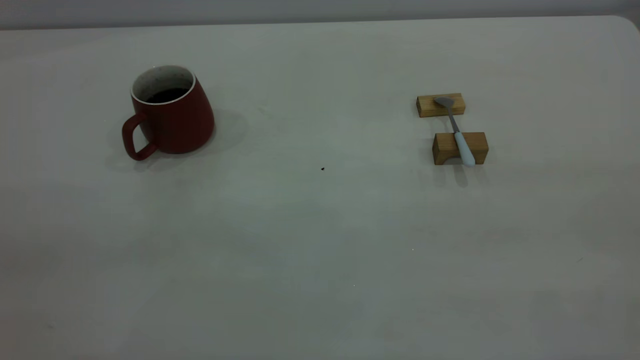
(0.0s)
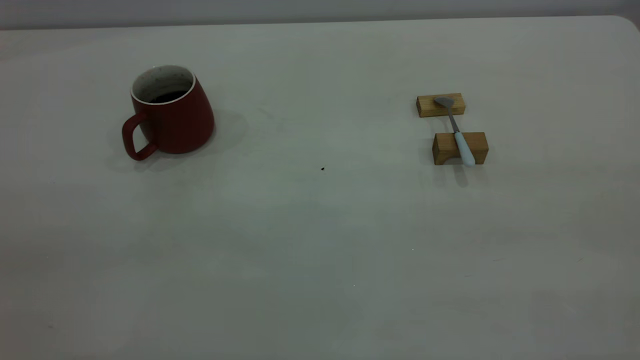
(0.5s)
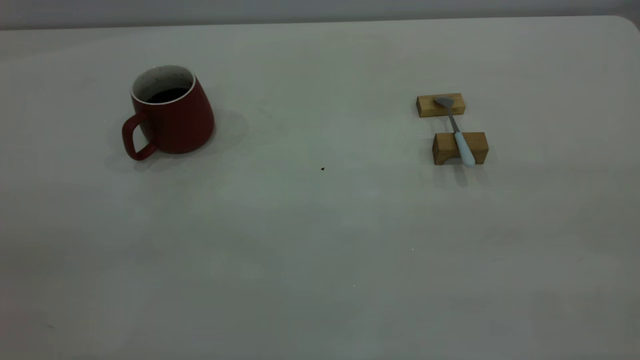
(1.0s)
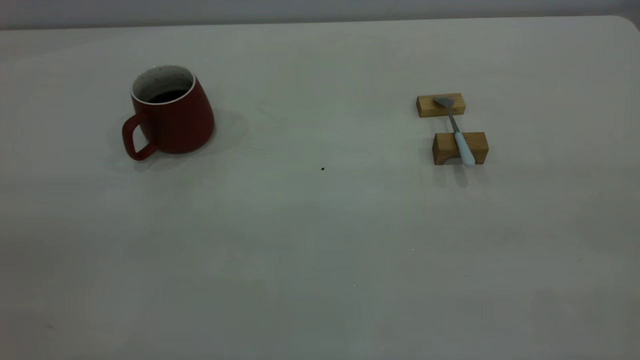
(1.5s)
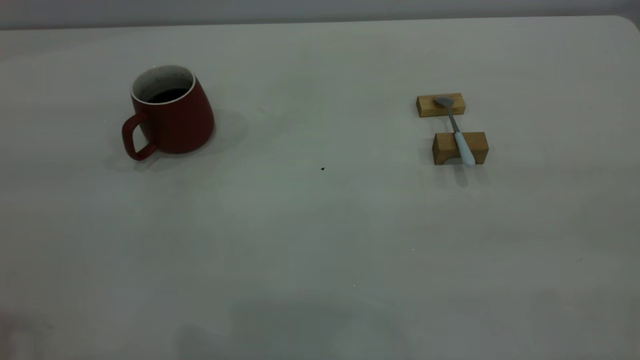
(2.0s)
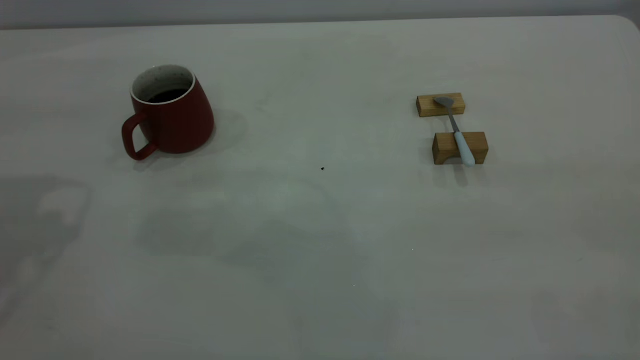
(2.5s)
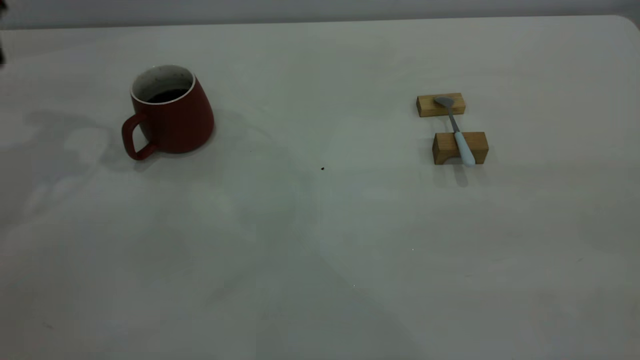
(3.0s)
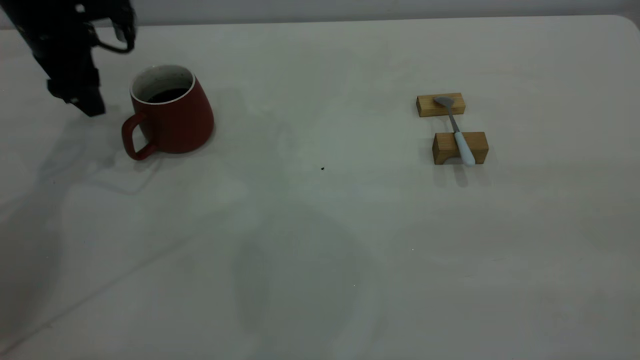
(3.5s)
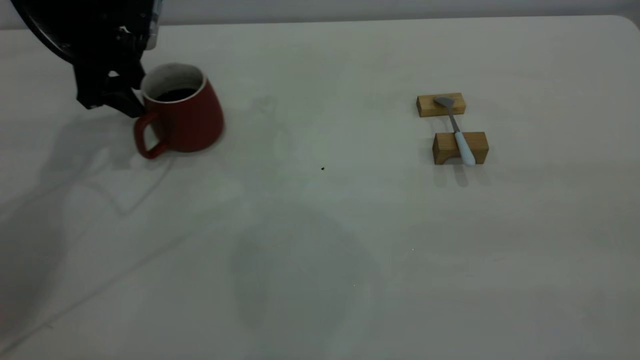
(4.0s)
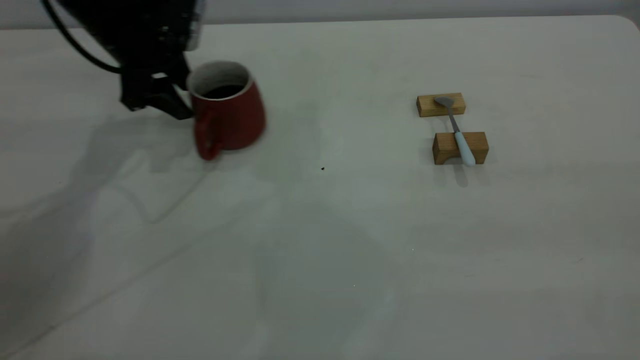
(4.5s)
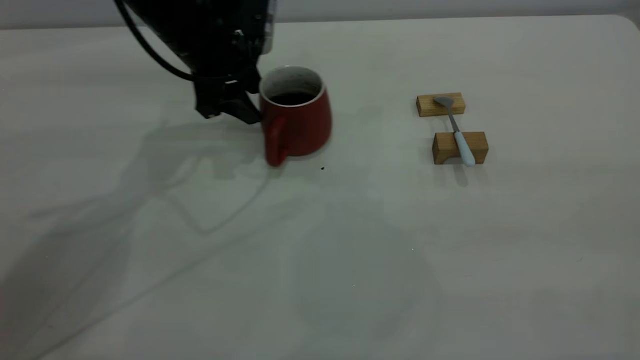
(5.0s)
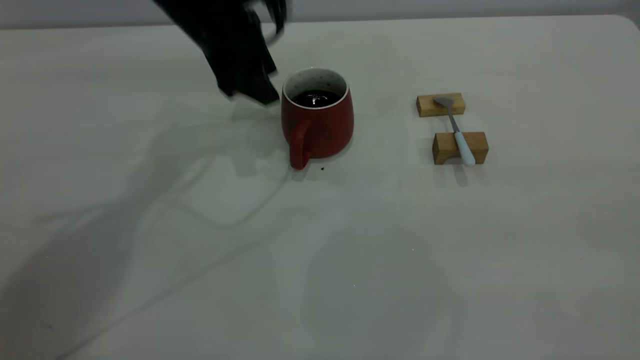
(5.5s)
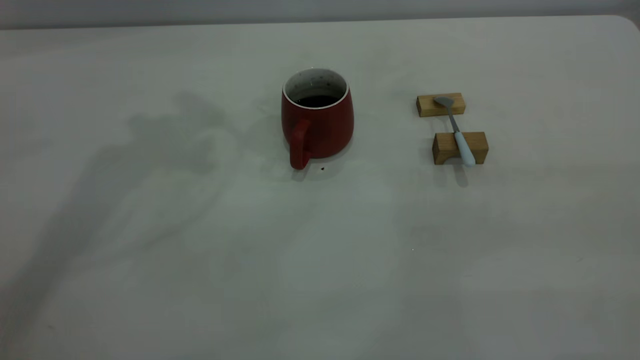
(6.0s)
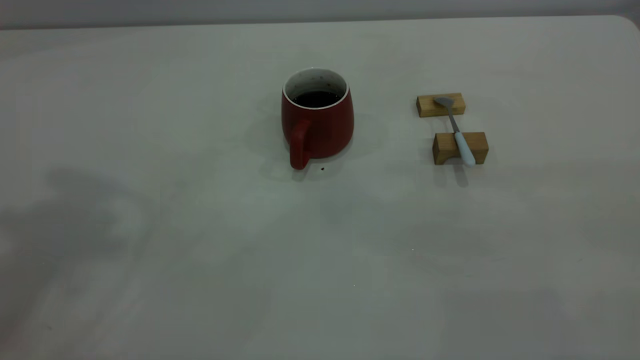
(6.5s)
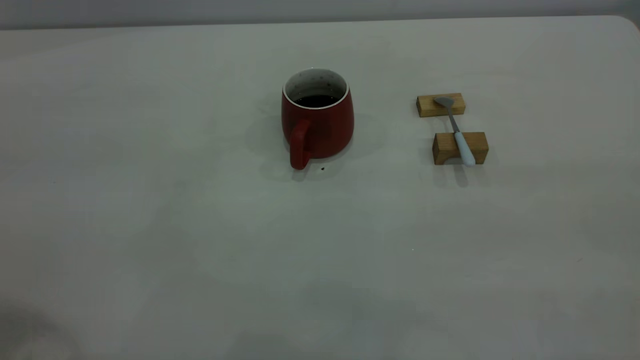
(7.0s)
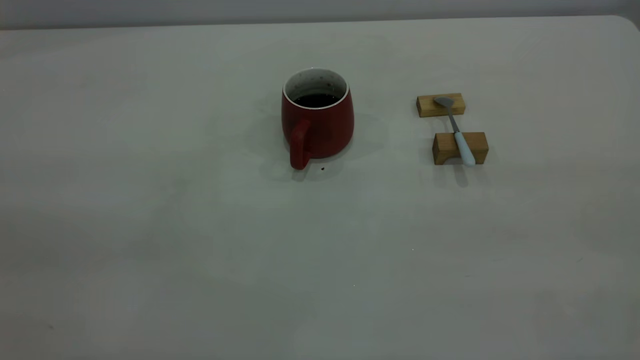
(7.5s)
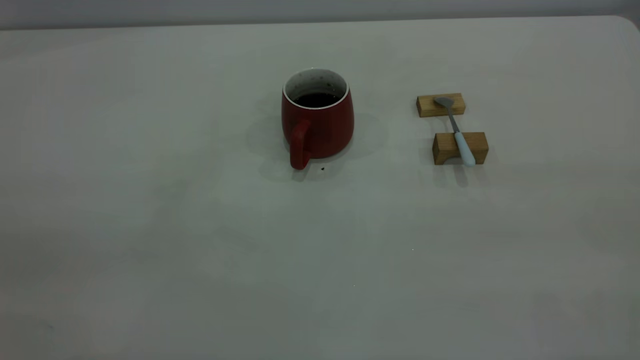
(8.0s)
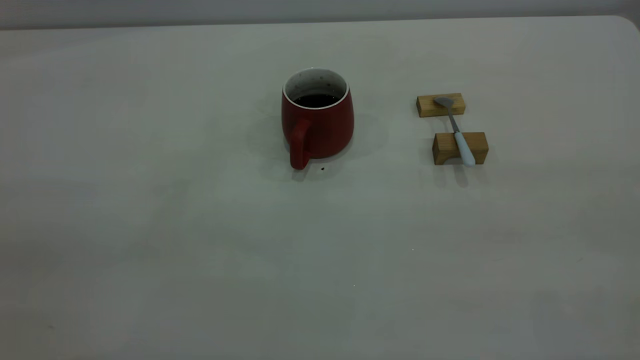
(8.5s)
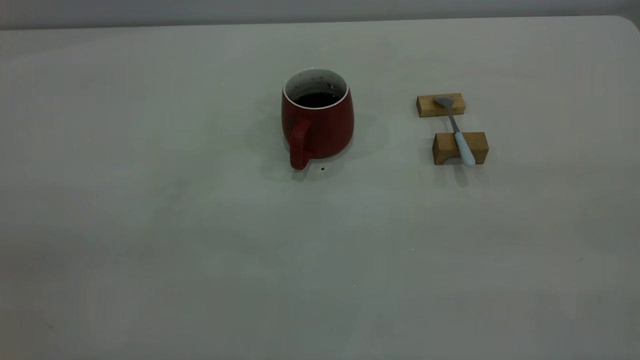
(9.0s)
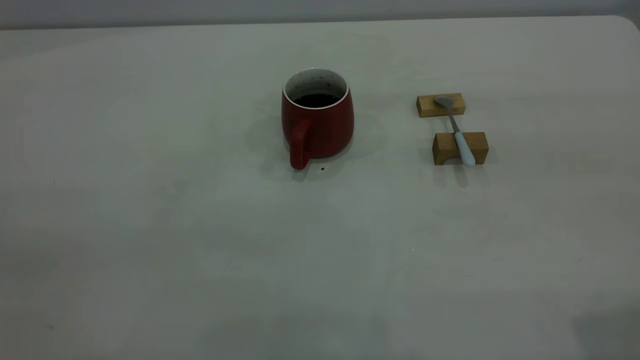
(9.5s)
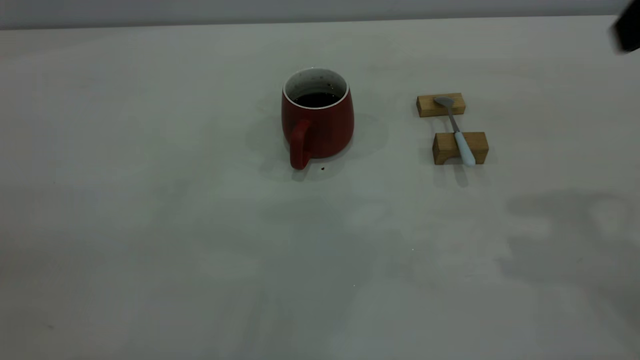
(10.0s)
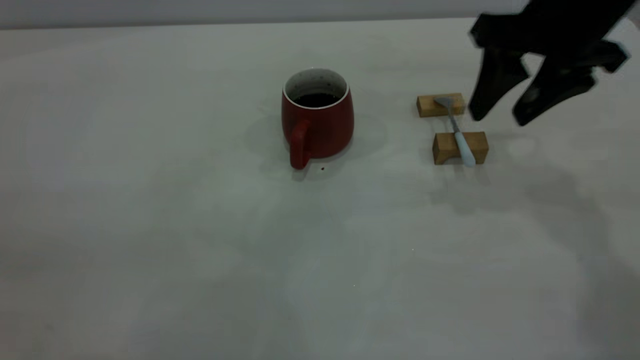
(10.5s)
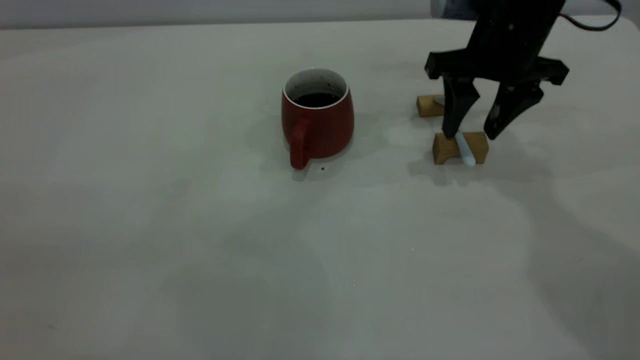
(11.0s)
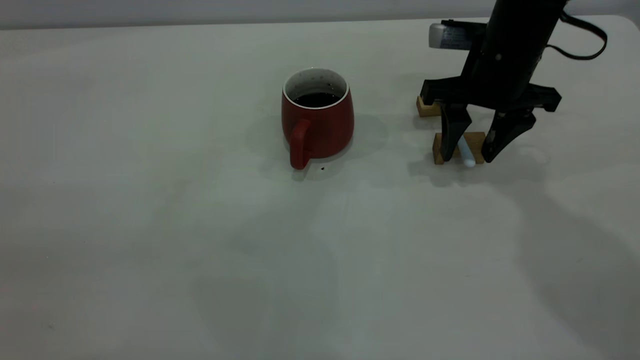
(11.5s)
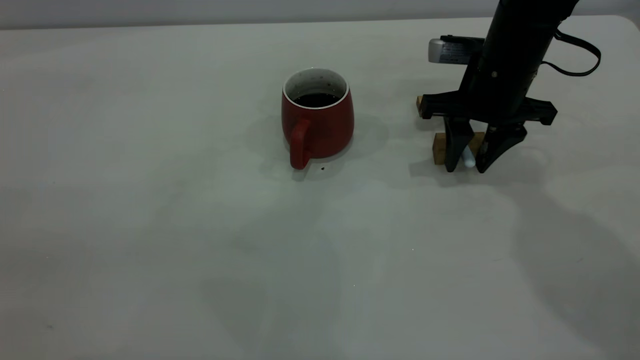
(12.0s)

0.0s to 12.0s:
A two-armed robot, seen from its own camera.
Step, 0.0s to 5.5s: Move the cup with coffee to the center of view.
2.0s to 4.0s: The left gripper goes some 40 cm forward and downward.
4.0s to 6.0s: The left gripper moves upward, some 25 cm.
10.0s to 12.0s: The right gripper moves downward and forward, approximately 25 cm, and closes.

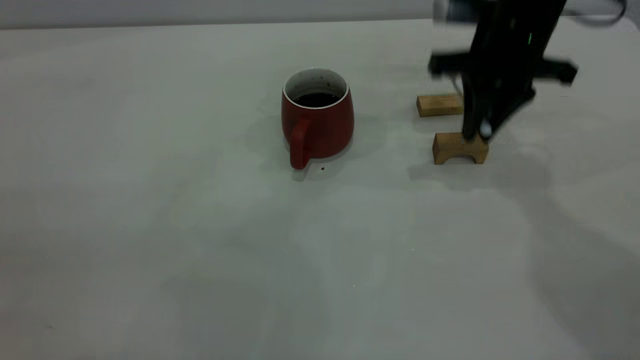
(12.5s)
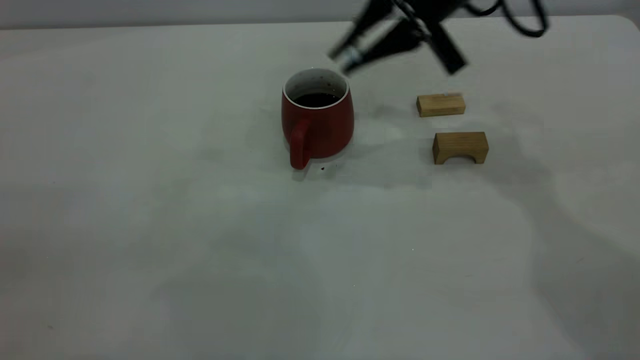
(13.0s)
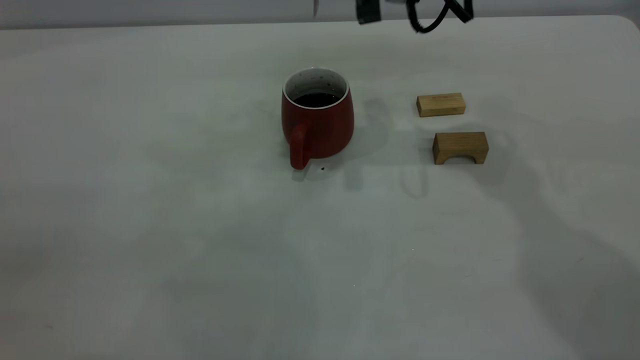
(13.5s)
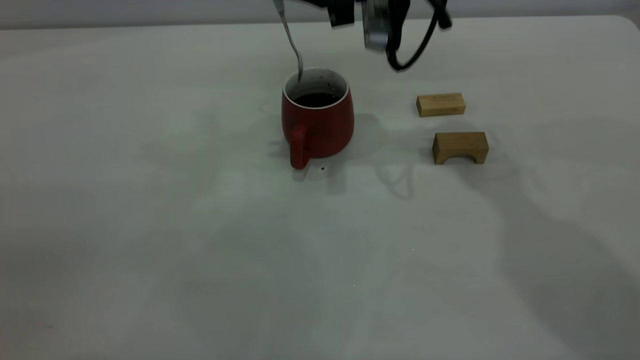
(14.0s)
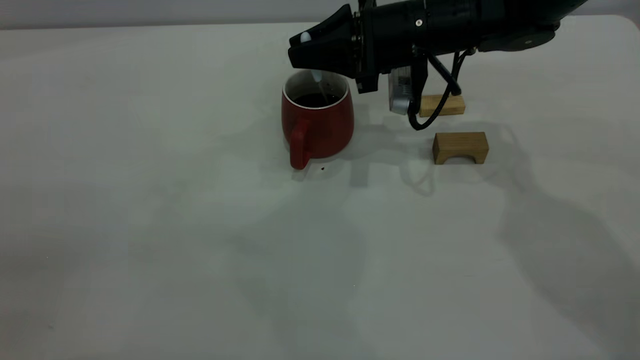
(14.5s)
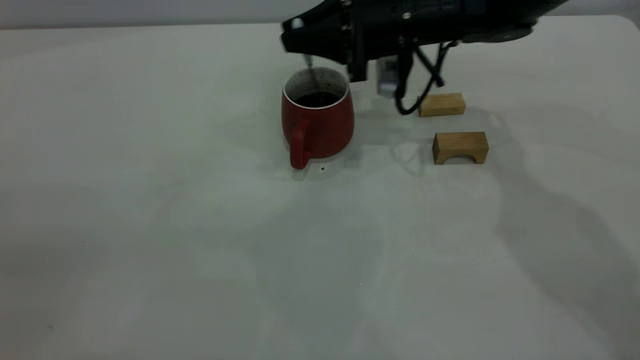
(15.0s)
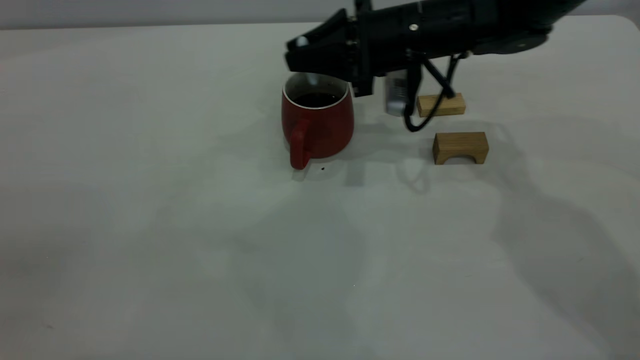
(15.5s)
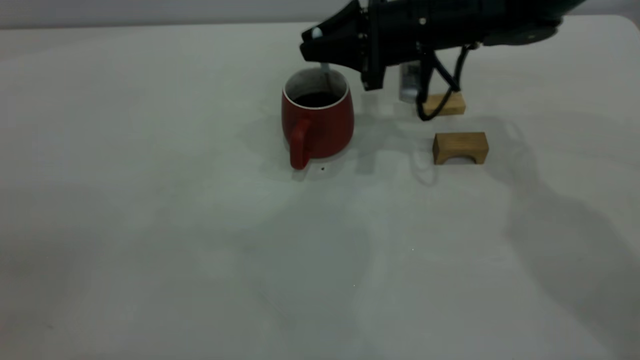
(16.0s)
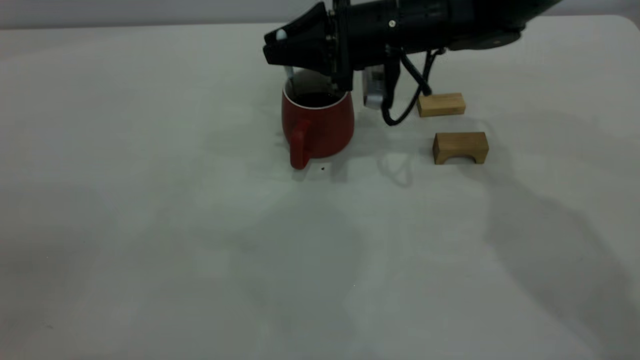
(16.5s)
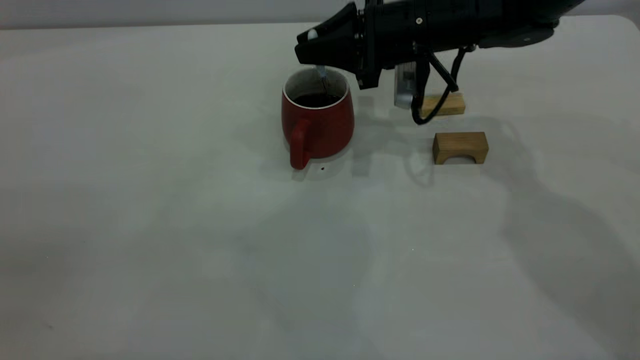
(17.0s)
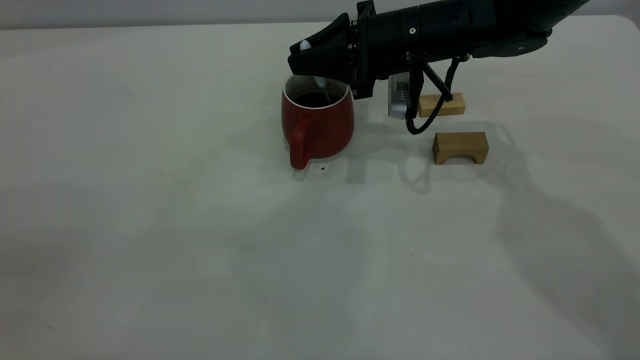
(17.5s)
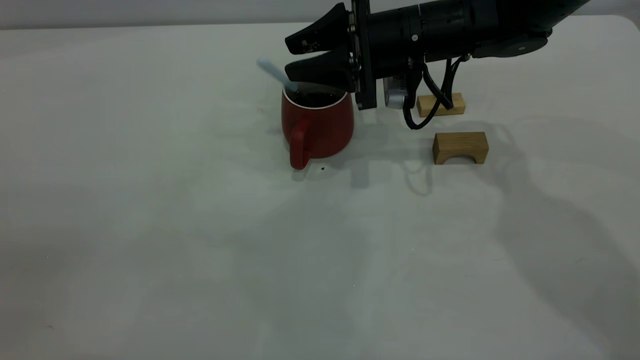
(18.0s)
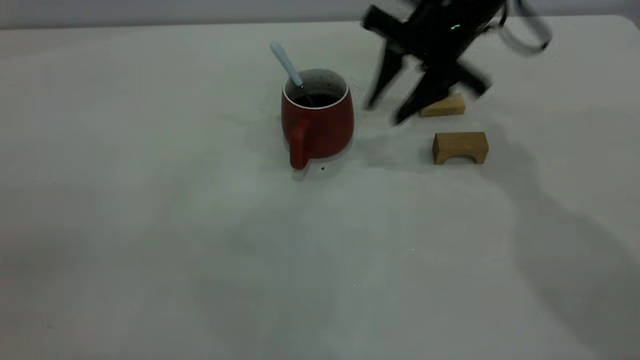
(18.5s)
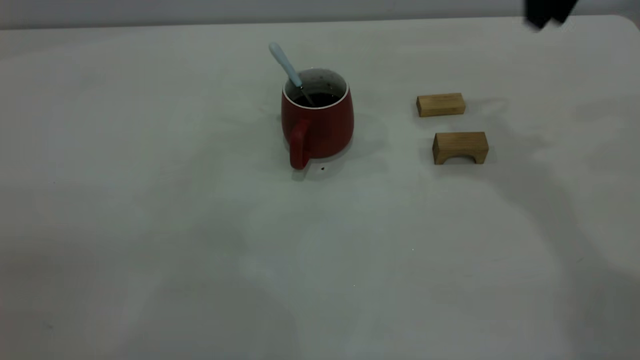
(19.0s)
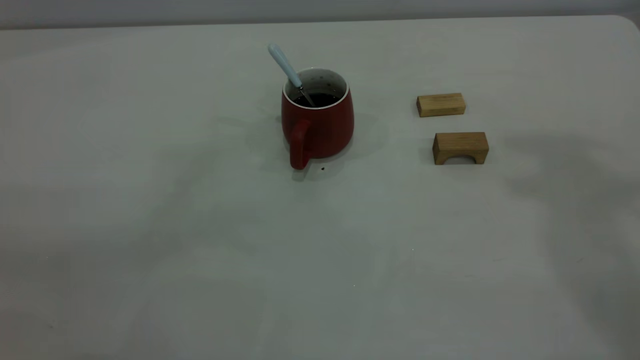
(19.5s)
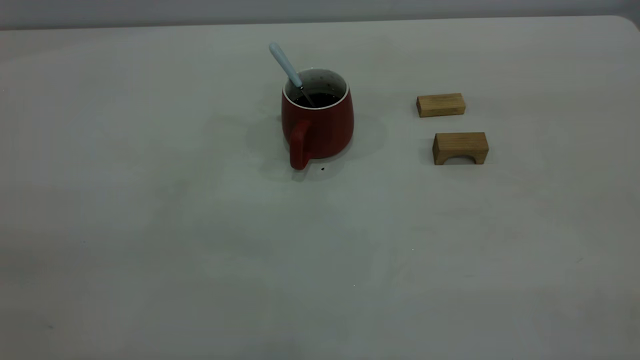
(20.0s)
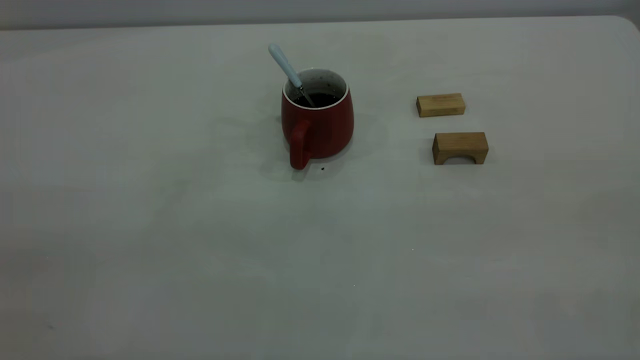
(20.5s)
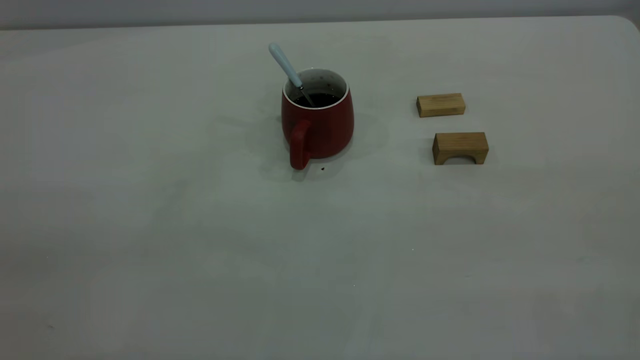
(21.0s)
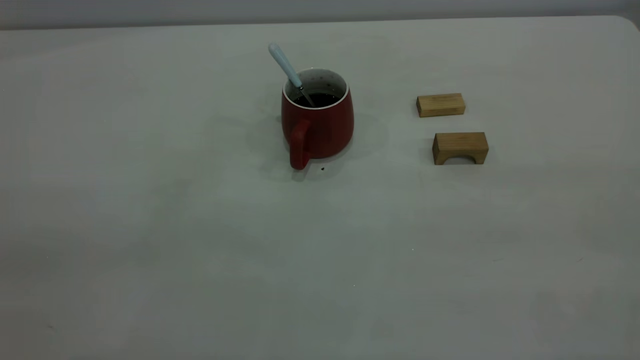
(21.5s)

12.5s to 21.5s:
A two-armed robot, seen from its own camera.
Step, 13.0s to 18.0s: Stir the coffee in the cup.
12.5s to 14.5s: The right gripper heads to the left and downward, covering roughly 10 cm.
14.5s to 17.0s: There are only small adjustments of the grippers.
17.0s to 19.5s: The right gripper is displaced upward and backward by some 40 cm, and opens, then closes again.
